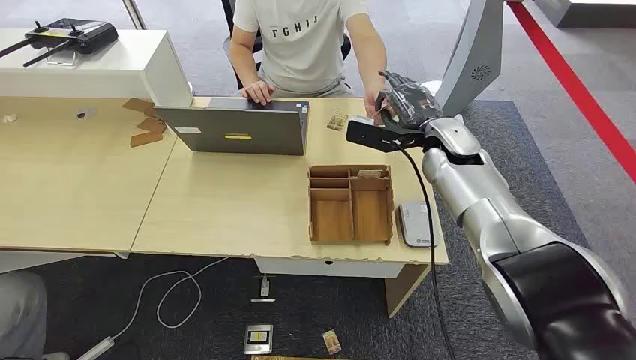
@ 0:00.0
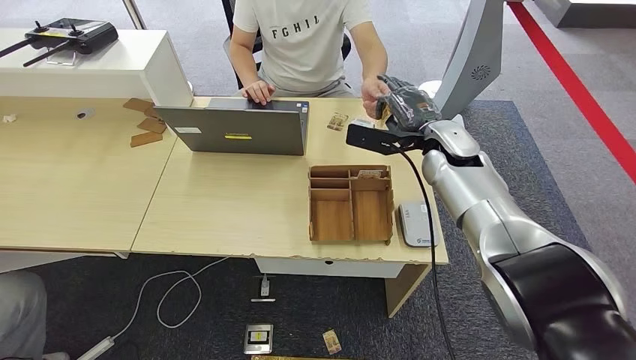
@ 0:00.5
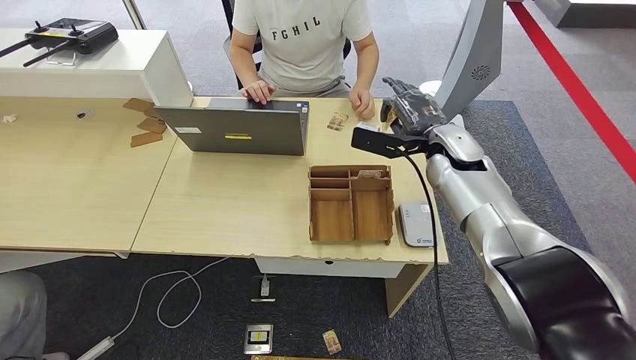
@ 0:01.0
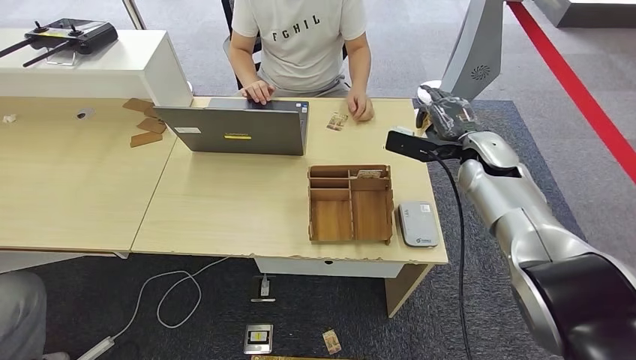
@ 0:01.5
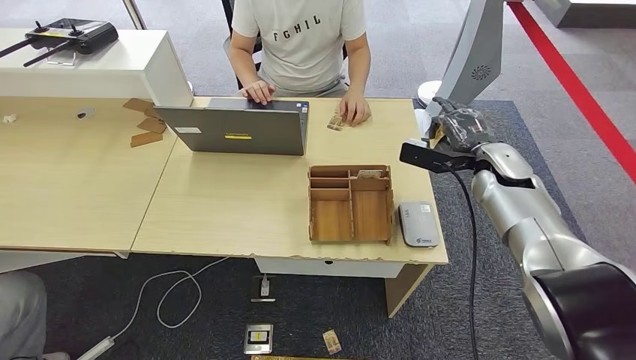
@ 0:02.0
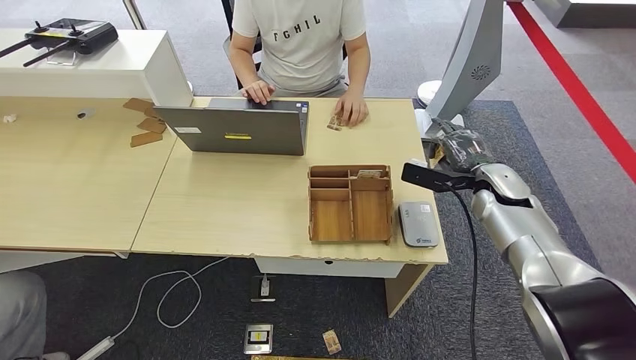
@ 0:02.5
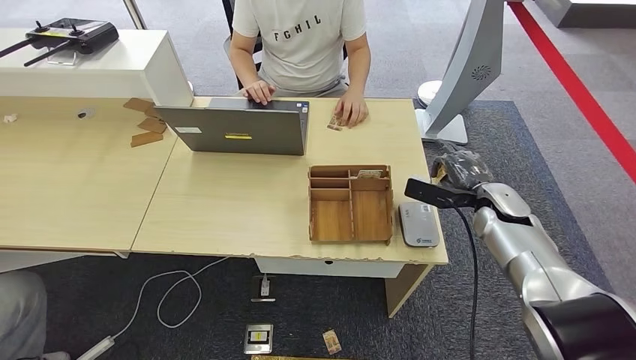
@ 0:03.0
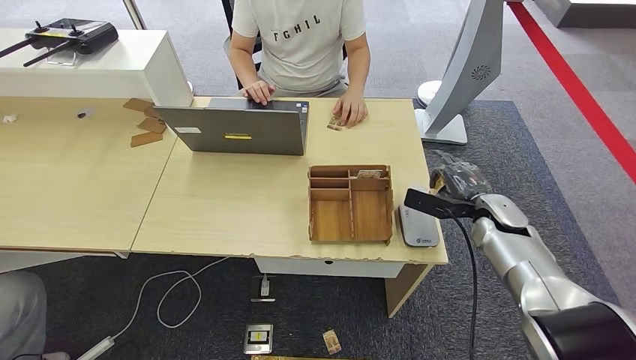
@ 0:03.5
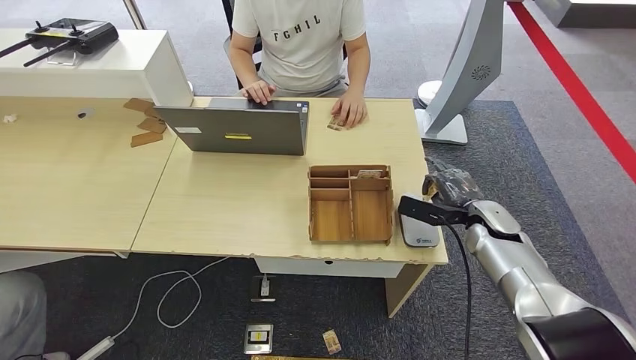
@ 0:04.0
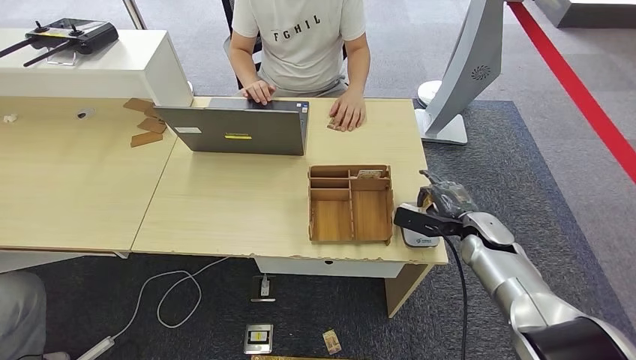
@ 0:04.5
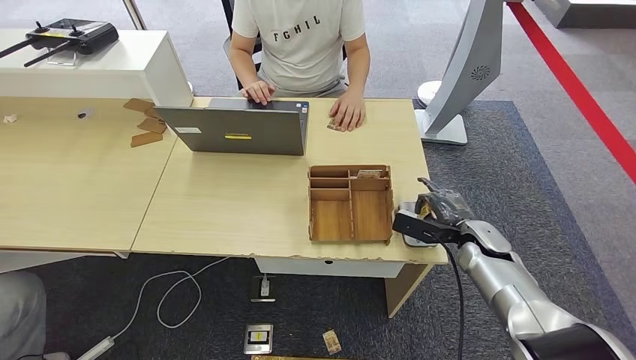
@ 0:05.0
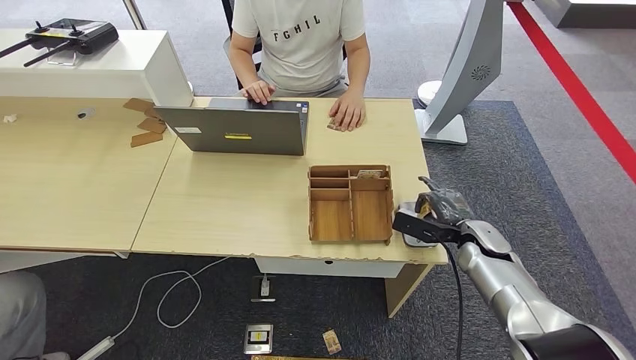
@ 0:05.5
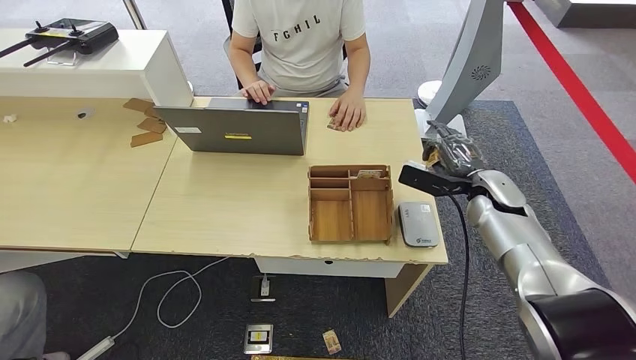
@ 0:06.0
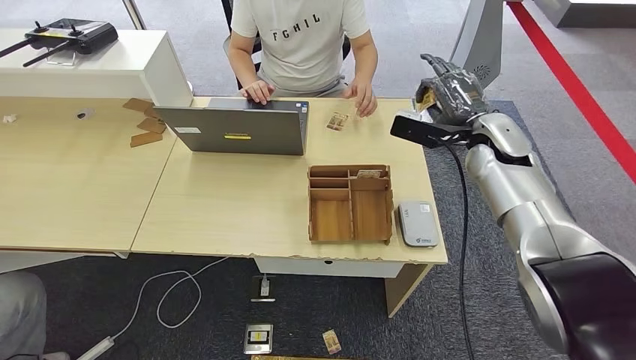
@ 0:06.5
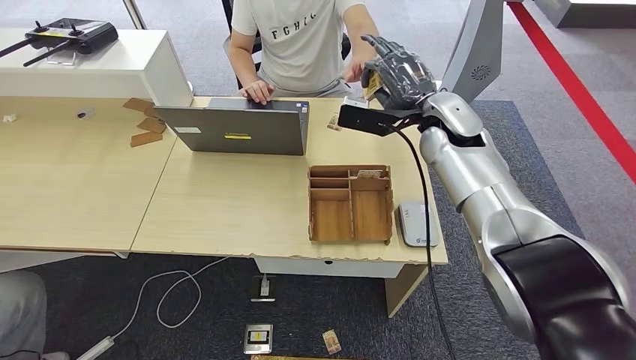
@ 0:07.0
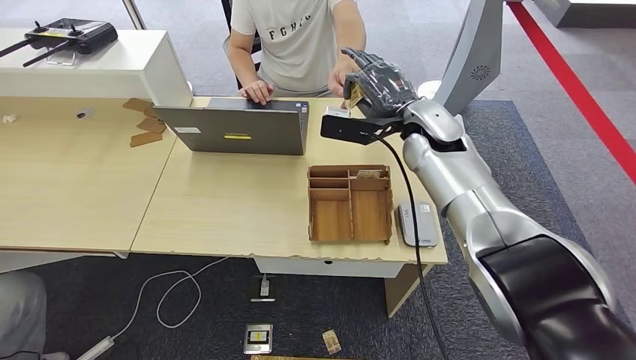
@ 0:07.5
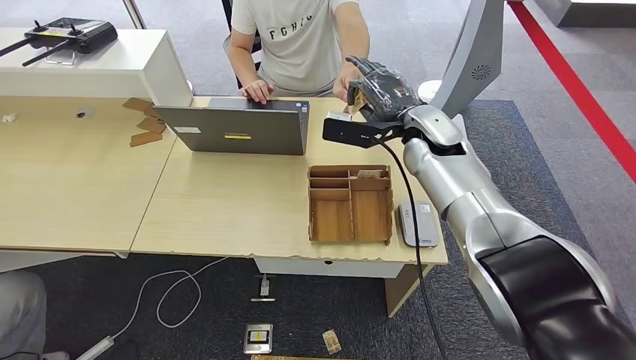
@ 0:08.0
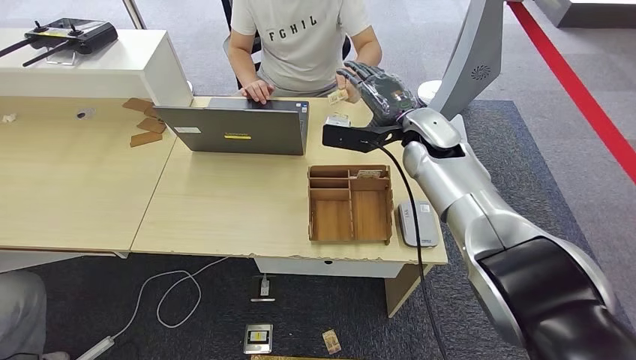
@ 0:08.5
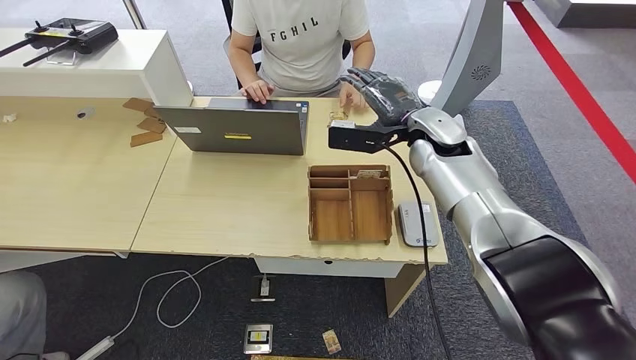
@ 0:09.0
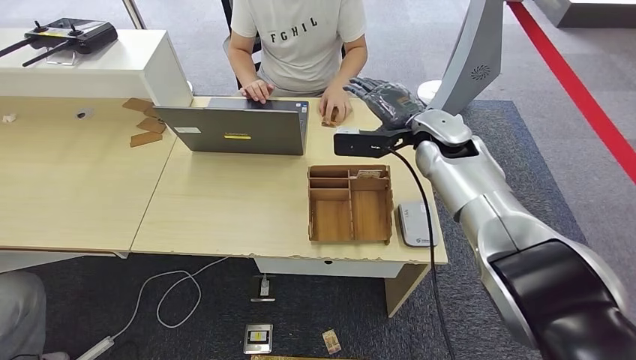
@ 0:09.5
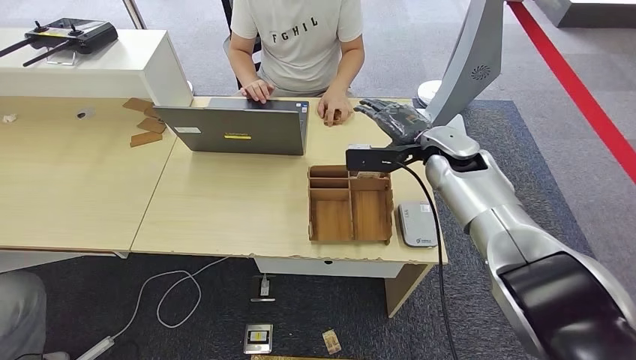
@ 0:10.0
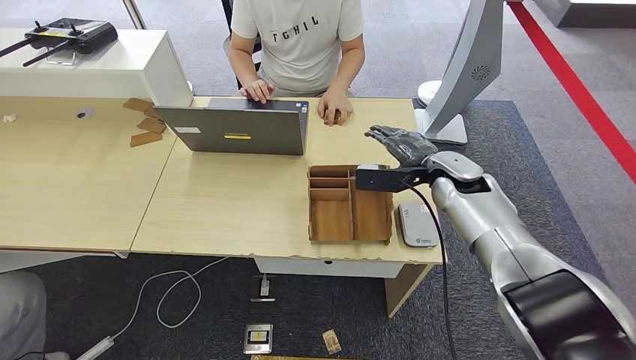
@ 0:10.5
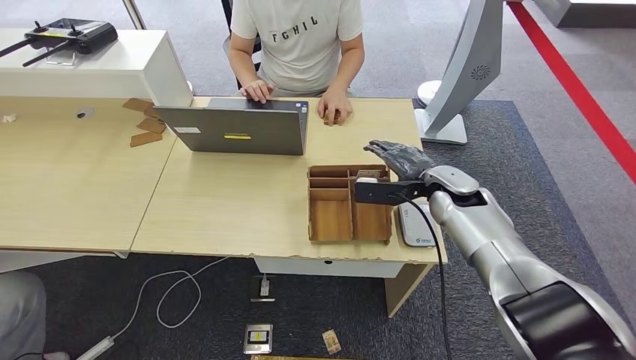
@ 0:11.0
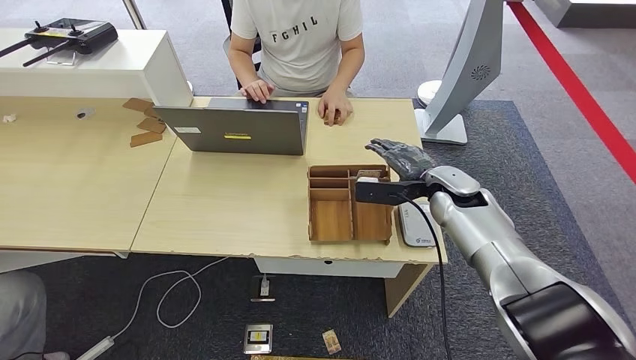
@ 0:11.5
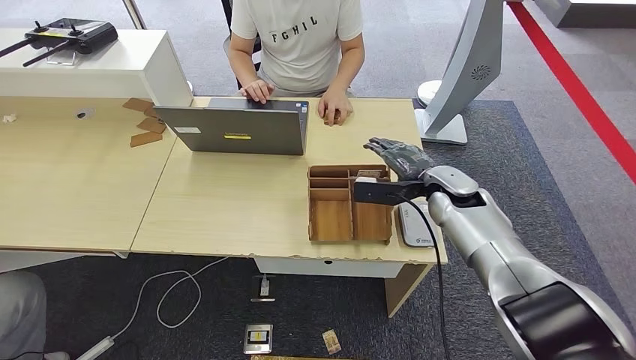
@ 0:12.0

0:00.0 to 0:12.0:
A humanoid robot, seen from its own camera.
Step, 0:00.0 to 0:00.5: Take the ID card from the person's hand.
Step, 0:01.0 to 0:06.5: Place the ID card on the card reader.
Step, 0:07.0 to 0:10.0: Hand the ID card to the person.
0:02.0 to 0:04.0: The right hand travels downward and backward by roughly 10 cm.
0:04.0 to 0:06.0: The right hand moves upward, roughly 5 cm.
0:06.0 to 0:08.0: The right hand travels to the left and upward by approximately 20 cm.
0:08.0 to 0:10.0: The right hand moves about 5 cm.
0:10.0 to 0:12.0: The right hand shifts some 5 cm downward.

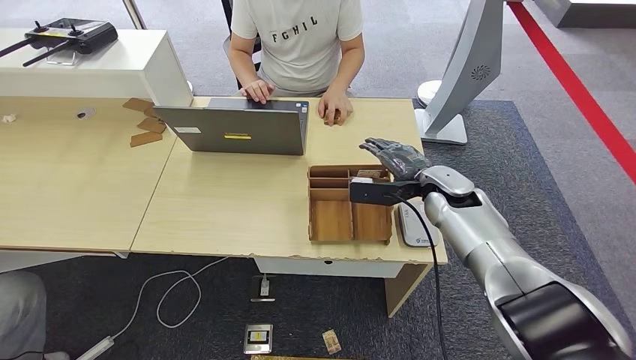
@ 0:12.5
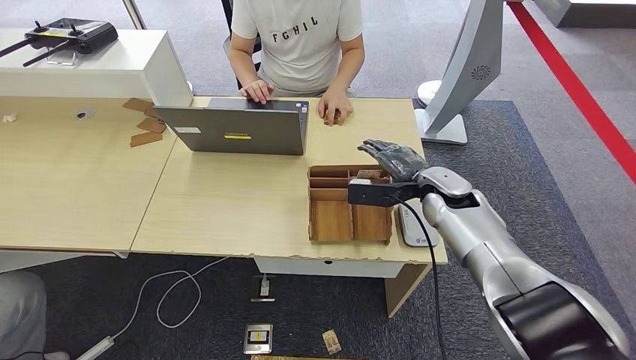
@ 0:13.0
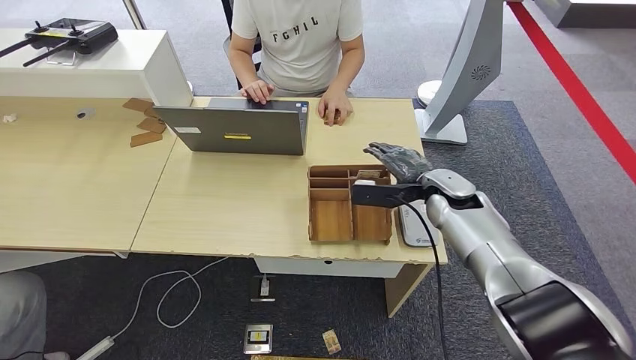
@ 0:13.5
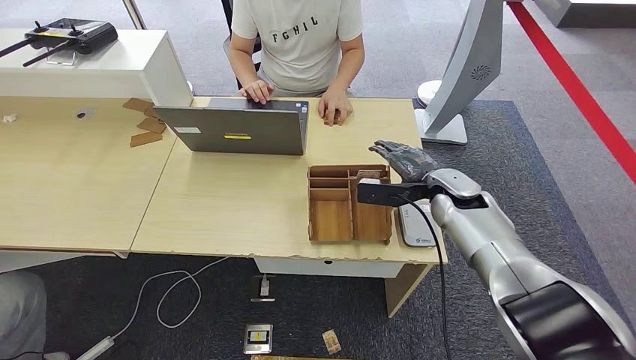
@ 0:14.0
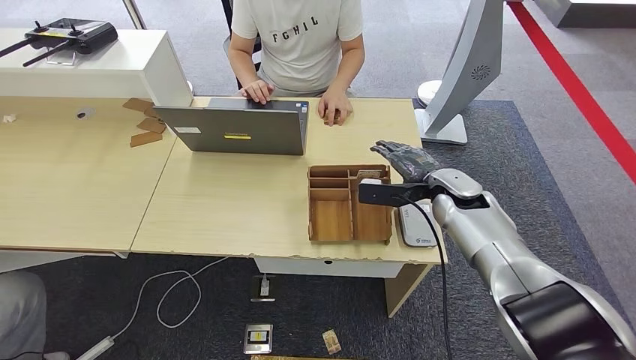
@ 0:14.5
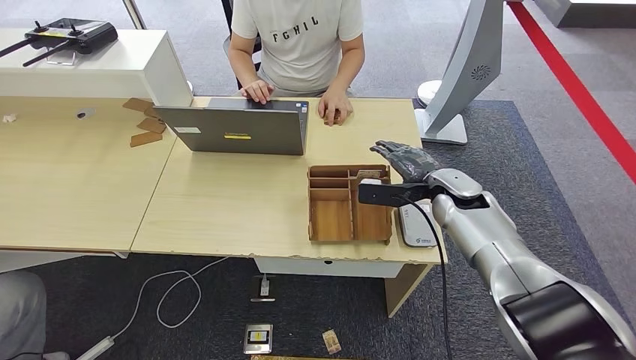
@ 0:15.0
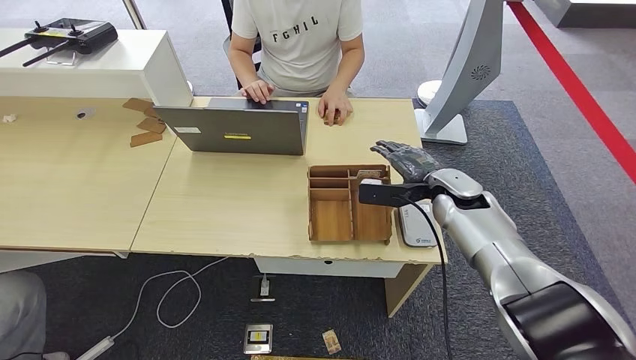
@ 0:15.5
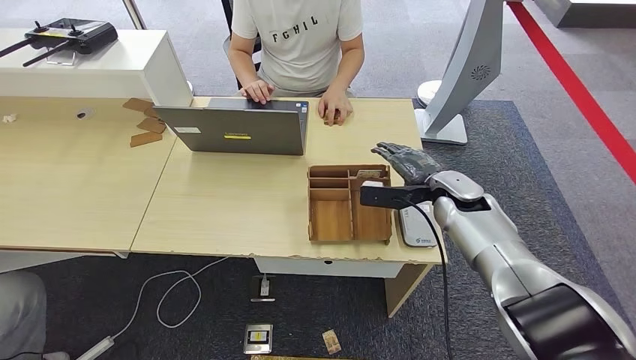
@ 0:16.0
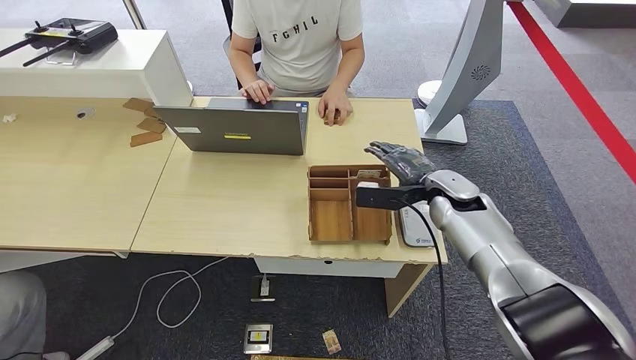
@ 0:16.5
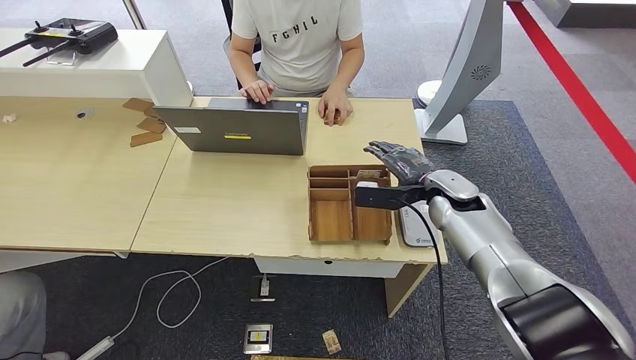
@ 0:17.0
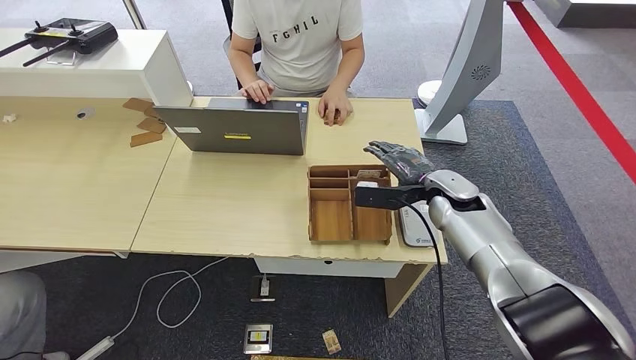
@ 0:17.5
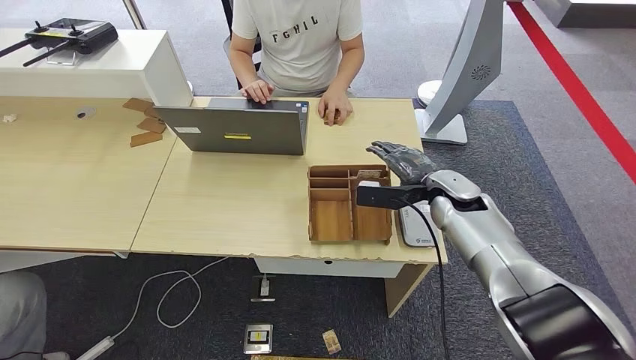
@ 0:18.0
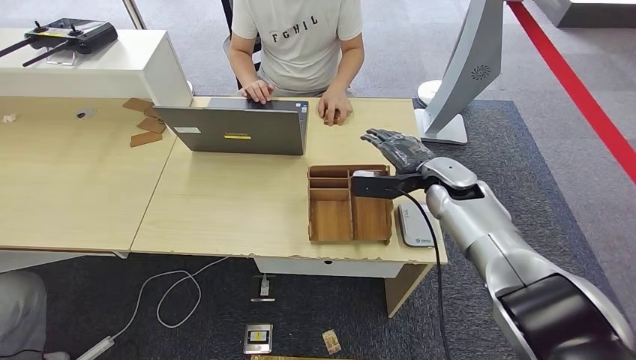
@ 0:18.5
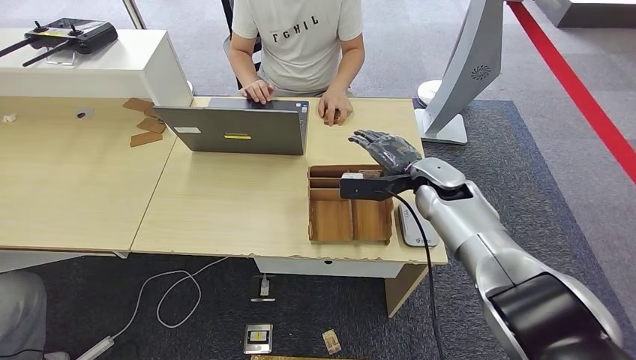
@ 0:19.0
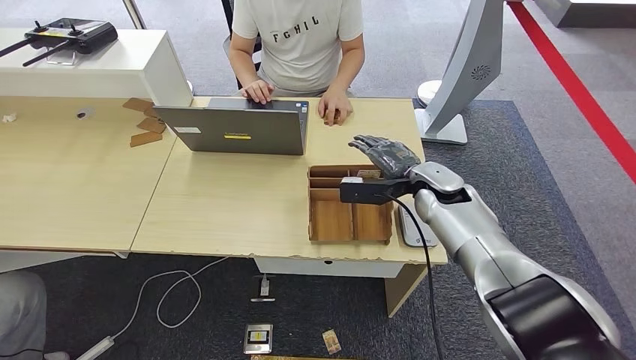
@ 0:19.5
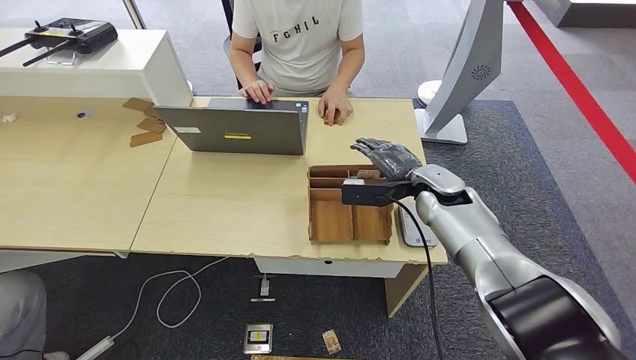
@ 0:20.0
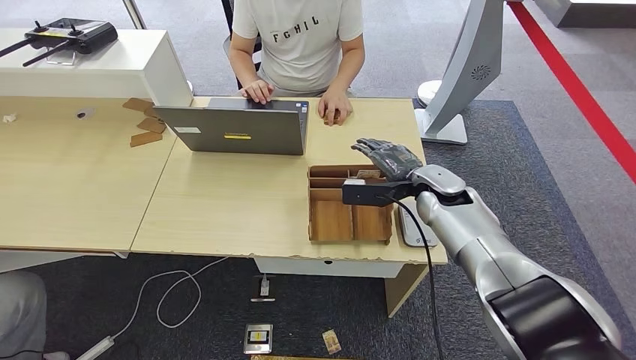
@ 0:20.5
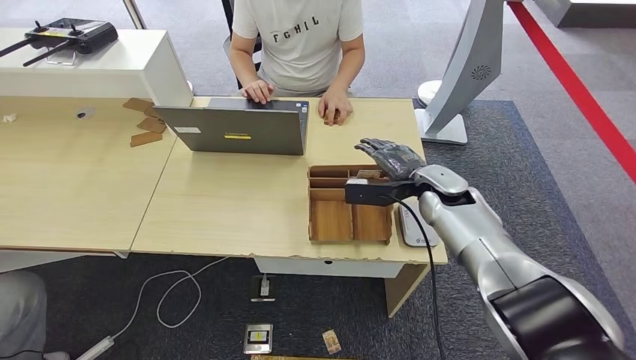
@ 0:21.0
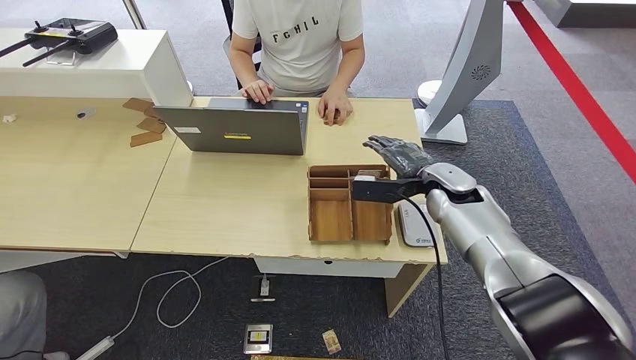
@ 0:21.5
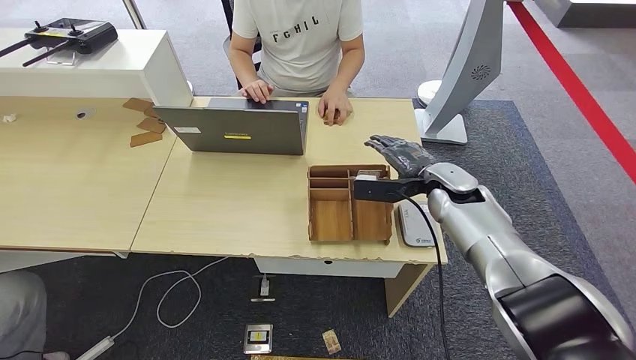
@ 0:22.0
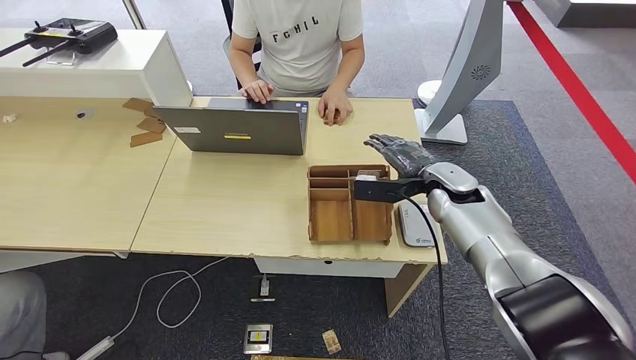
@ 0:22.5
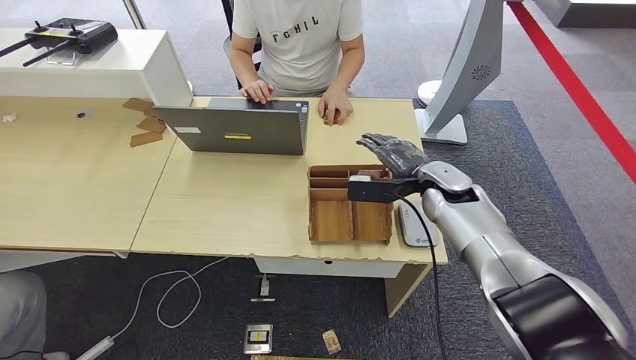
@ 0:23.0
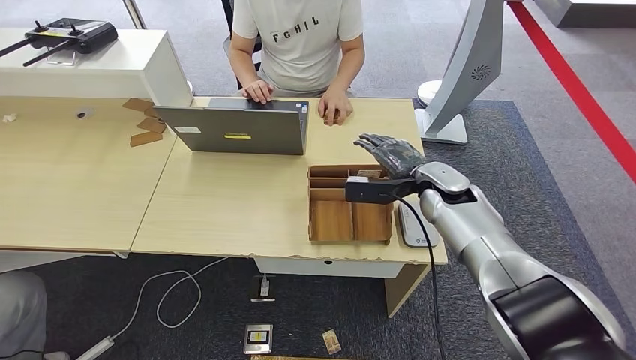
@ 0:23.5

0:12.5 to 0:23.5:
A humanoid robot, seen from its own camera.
0:12.5 to 0:14.5: The hands move only a little.
0:14.5 to 0:18.0: Both hands stay about where they are.
0:18.0 to 0:23.5: The hands make only small movements.
